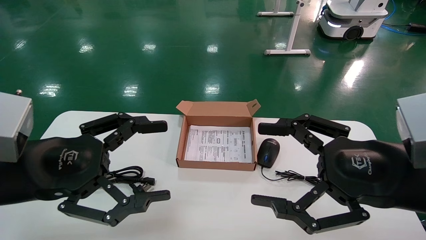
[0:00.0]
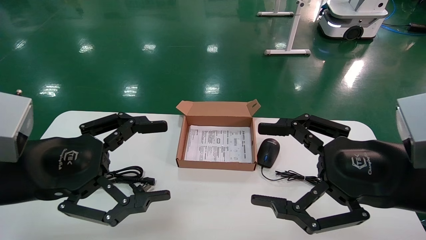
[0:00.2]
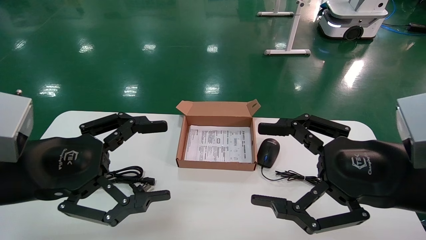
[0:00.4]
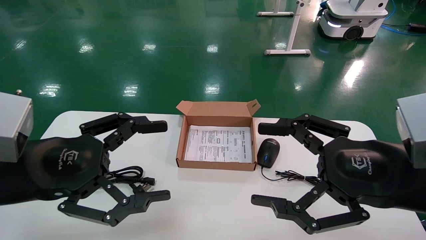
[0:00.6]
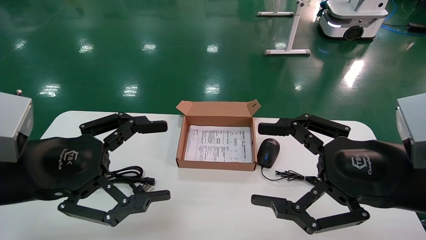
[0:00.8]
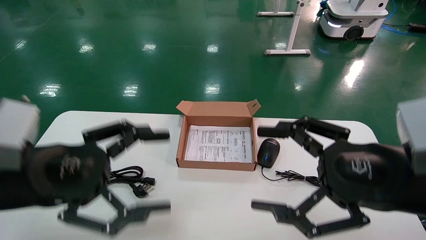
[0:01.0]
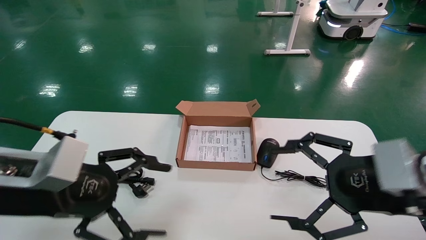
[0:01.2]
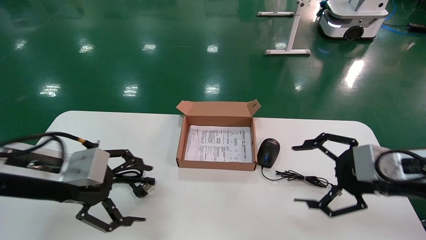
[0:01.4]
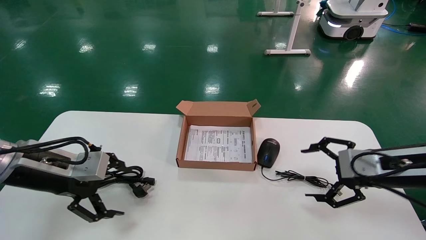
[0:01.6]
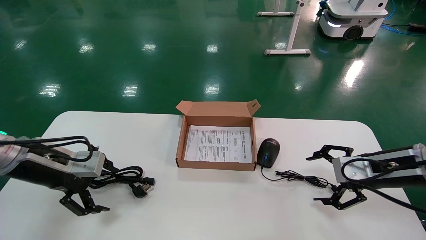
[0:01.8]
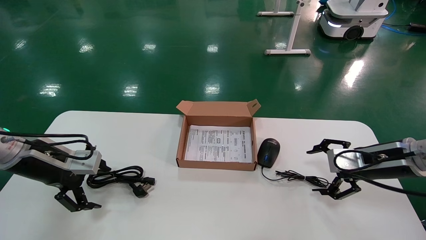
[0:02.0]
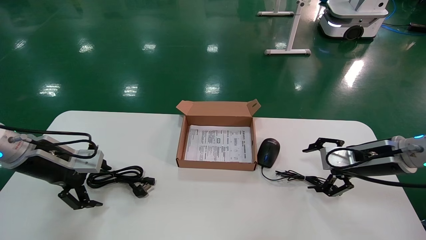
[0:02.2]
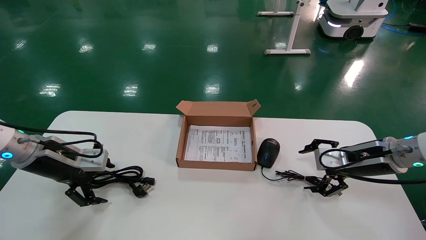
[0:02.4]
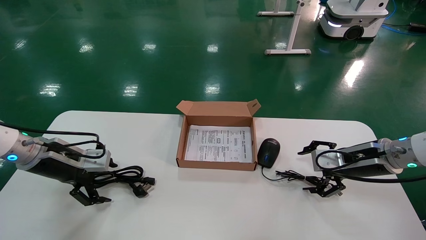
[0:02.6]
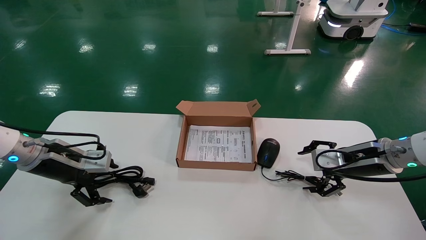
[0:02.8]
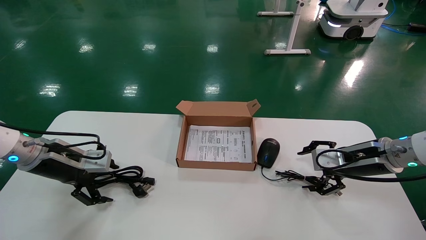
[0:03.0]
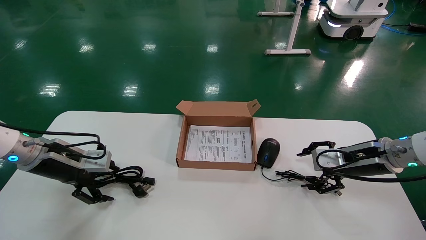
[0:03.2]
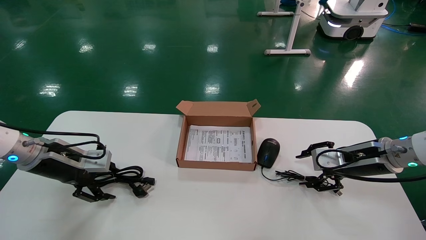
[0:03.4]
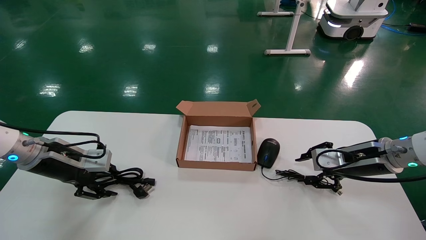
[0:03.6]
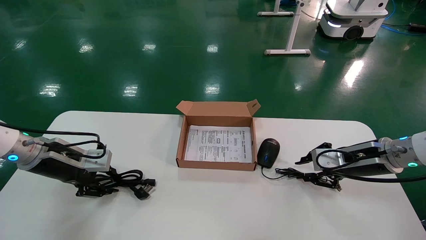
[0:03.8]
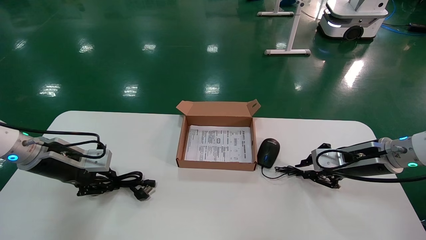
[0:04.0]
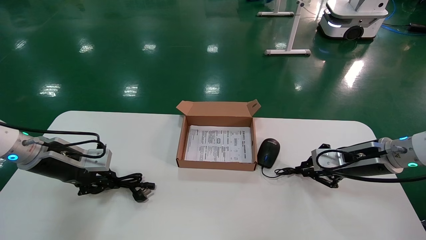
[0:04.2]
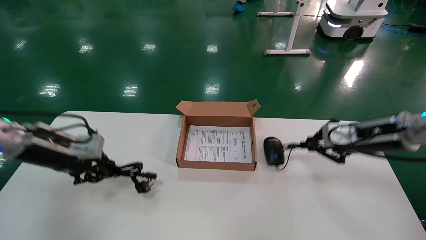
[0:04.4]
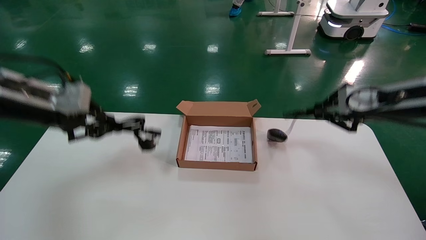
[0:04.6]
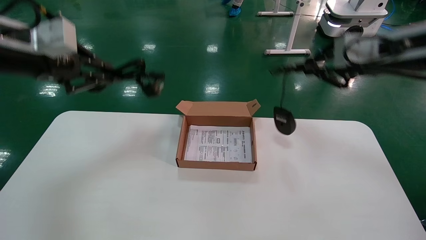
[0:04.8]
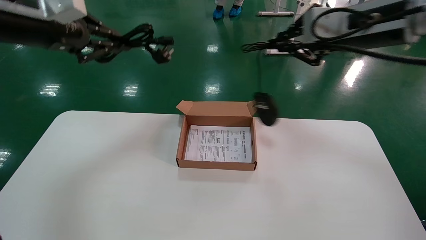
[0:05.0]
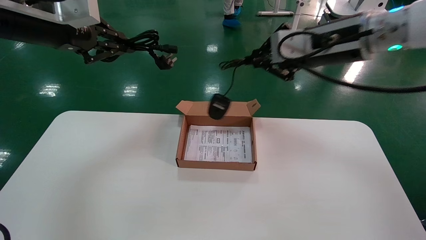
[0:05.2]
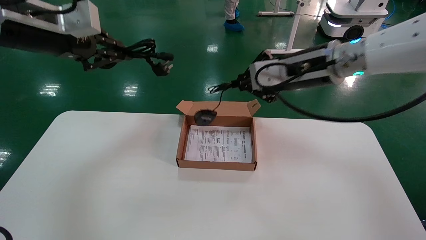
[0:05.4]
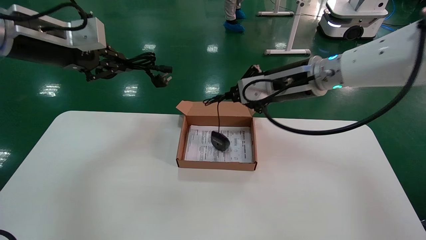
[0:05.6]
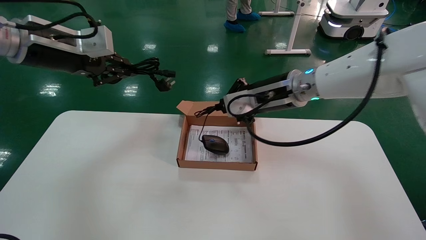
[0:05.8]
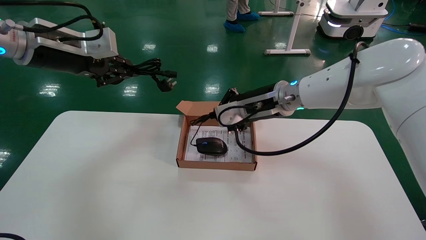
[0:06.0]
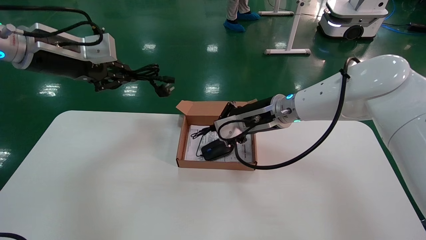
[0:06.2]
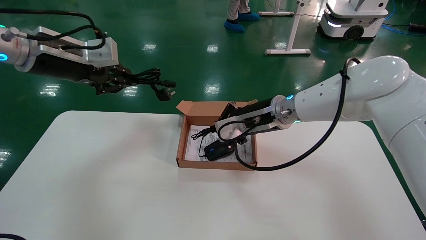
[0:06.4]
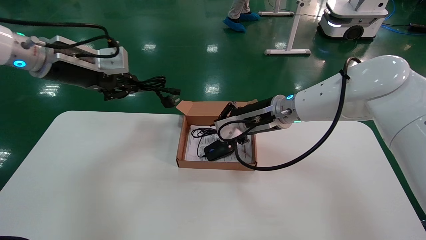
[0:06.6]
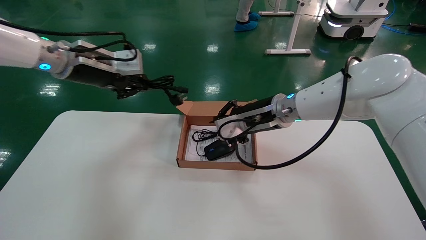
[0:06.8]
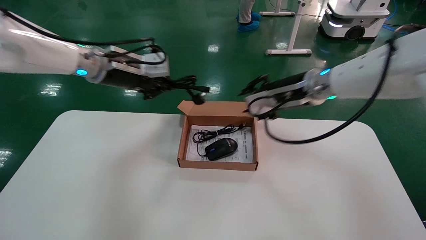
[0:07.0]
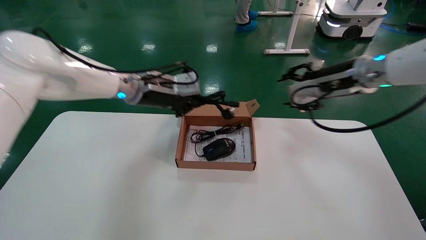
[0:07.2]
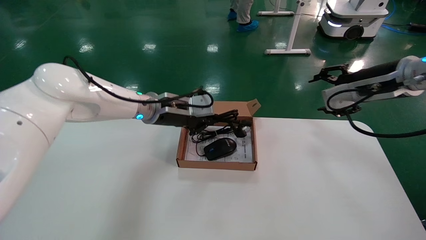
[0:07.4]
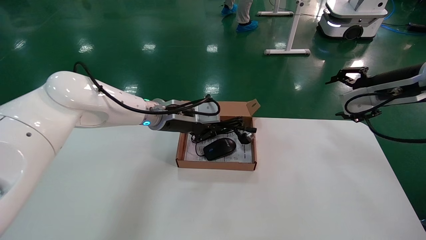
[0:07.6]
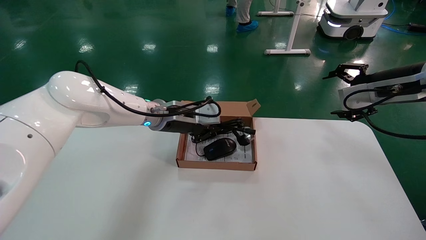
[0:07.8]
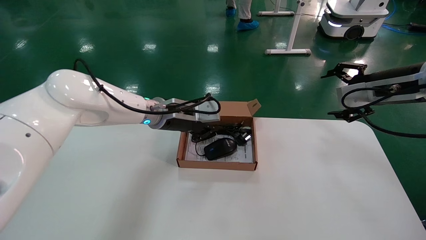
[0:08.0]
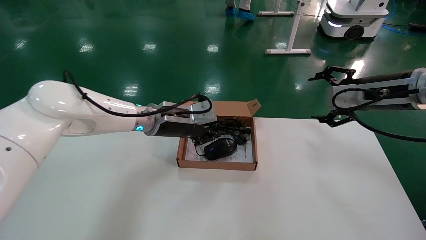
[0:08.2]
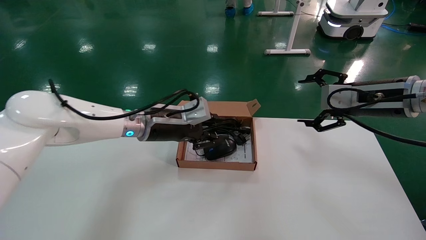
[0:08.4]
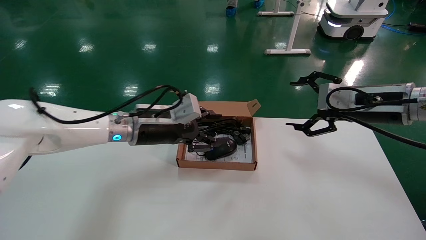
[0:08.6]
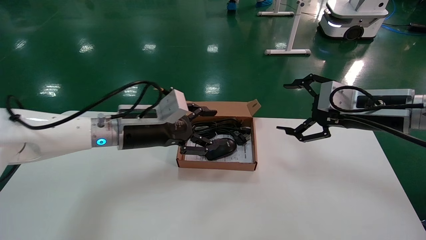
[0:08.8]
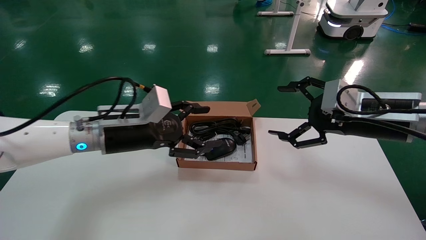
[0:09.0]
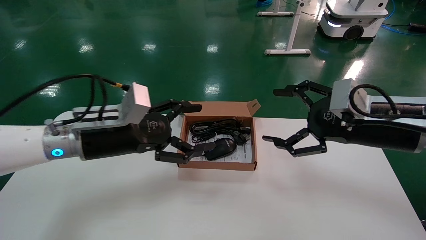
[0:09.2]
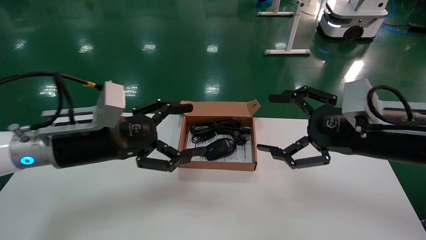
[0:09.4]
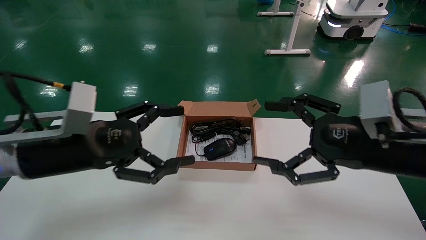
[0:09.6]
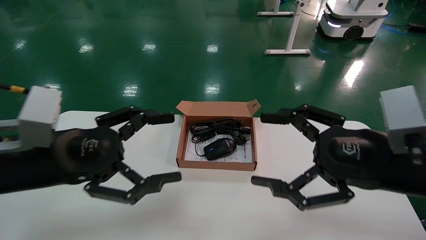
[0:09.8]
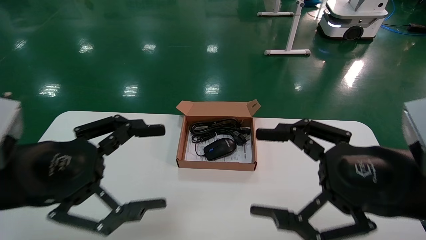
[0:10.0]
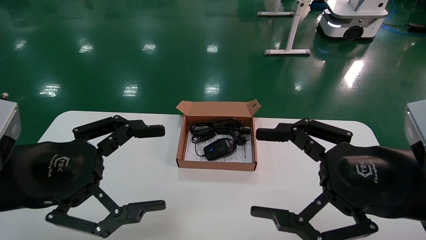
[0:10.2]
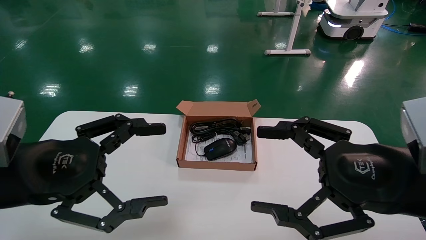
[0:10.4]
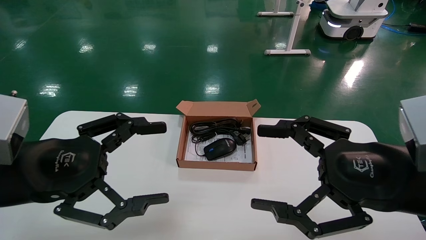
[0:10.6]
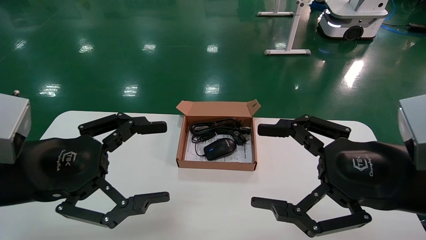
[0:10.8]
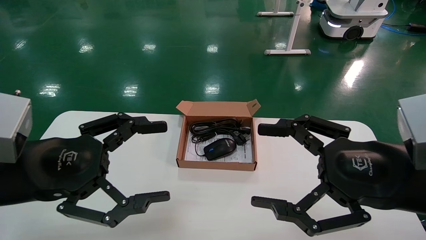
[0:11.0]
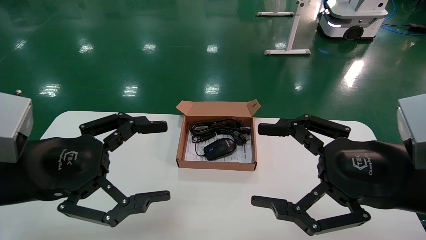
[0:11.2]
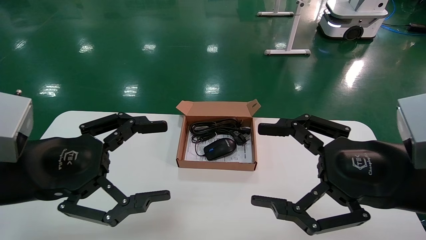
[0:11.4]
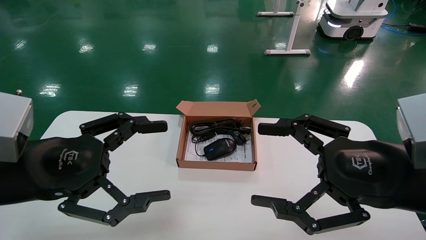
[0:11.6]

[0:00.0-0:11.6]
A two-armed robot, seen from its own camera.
Step, 0:01.2 to 0:04.2: Grab and lift both the mouse and power cord from the accessory packaging area at the same time.
Step, 0:04.4 to 0:08.4: Place the mouse and power cord into the box.
0:00.0 to 0:01.4: The left gripper shifts approximately 5 cm forward. Meanwhile the right gripper travels forward and to the right by about 10 cm.
0:01.4 to 0:02.8: The left gripper is displaced forward and to the left by approximately 15 cm. Meanwhile the right gripper moves forward and downward, roughly 15 cm.
0:02.8 to 0:04.4: The two grippers go about 5 cm upward. The right gripper closes up. Meanwhile the left gripper closes up.
0:04.4 to 0:05.8: The right gripper heads to the left, covering some 20 cm. The left gripper shifts about 15 cm upward.
0:05.8 to 0:07.2: The left gripper goes about 20 cm to the right, downward and forward; the right gripper shifts approximately 15 cm to the right, and opens its fingers.
0:07.2 to 0:08.8: The right gripper heads backward, covering about 10 cm, reaches approximately 10 cm to the right, then returns, and opens. Meanwhile the left gripper heads backward and downward, covering some 10 cm, and opens its fingers.
0:08.8 to 0:10.2: The left gripper shifts about 20 cm backward and to the left, and opens; the right gripper travels backward by roughly 15 cm.
0:10.2 to 0:11.6: Both grippers stay put.

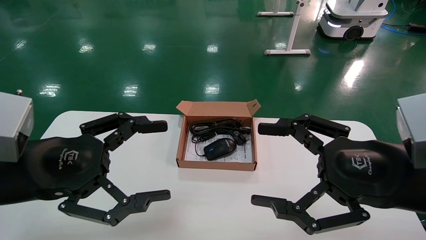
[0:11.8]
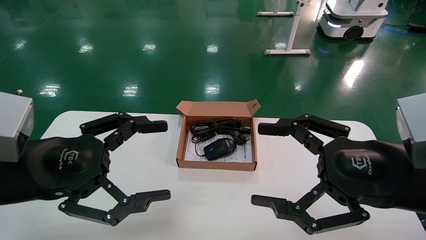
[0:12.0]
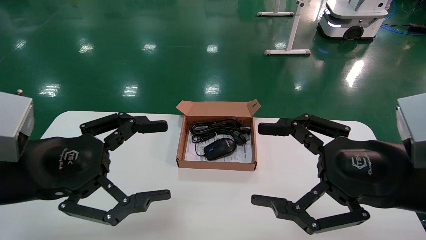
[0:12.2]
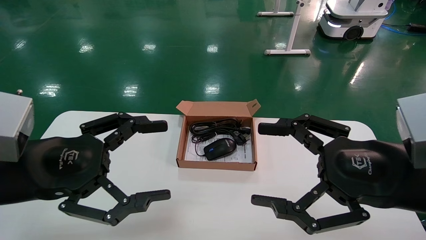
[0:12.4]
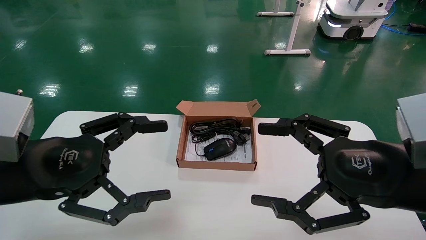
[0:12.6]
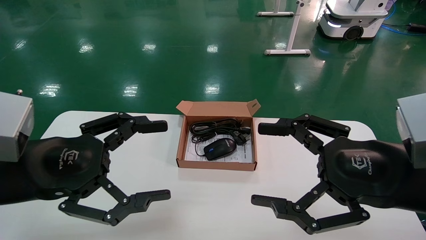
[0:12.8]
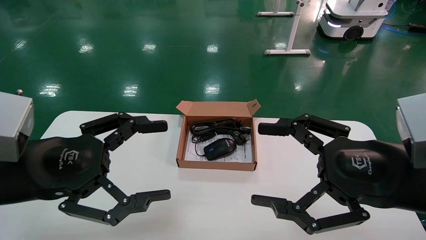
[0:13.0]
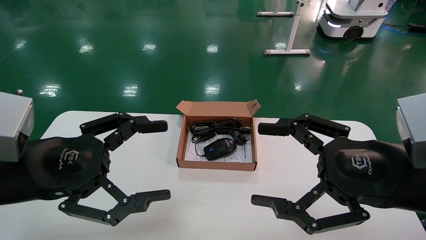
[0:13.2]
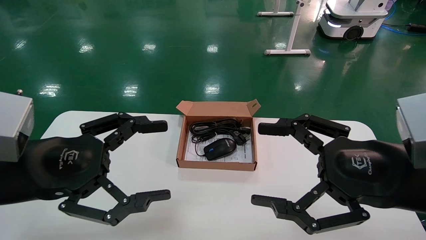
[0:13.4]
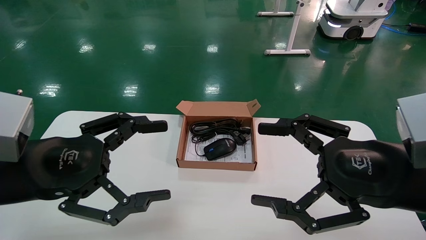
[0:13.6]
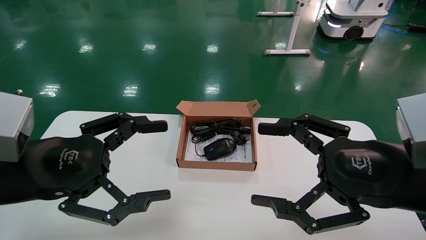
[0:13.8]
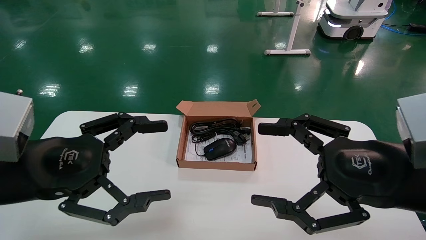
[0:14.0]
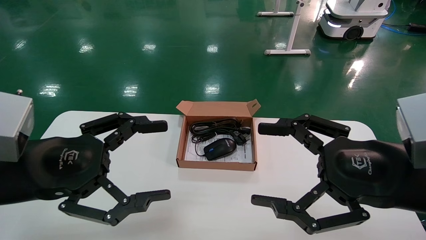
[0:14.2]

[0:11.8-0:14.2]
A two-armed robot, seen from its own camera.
0:11.8 to 0:14.2: Both grippers stay about where they are.
